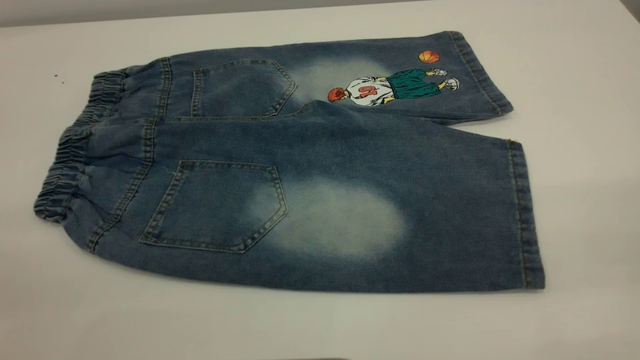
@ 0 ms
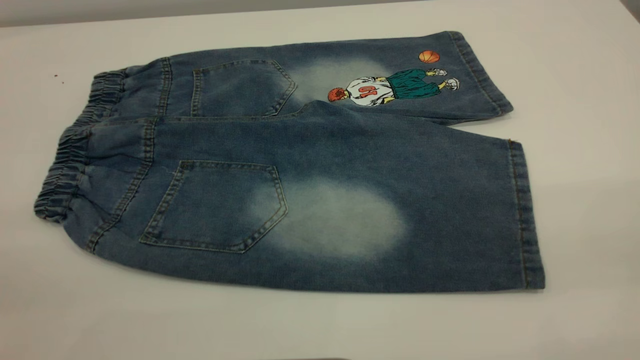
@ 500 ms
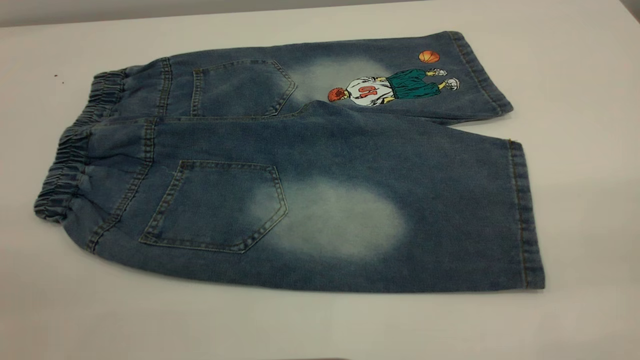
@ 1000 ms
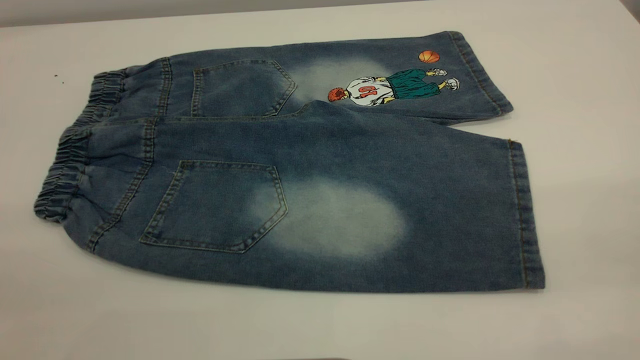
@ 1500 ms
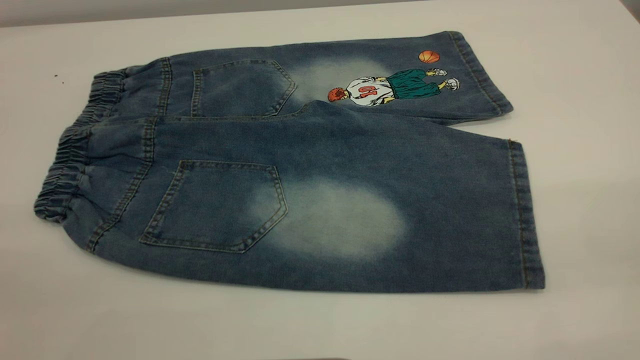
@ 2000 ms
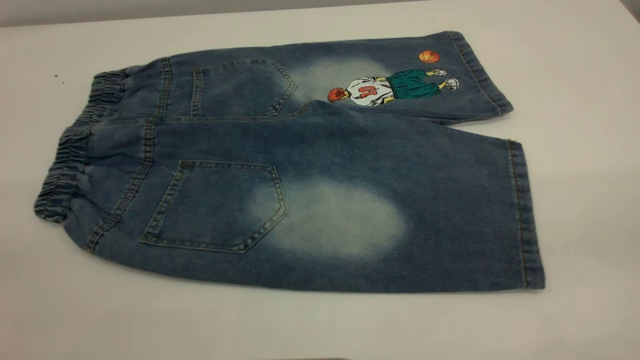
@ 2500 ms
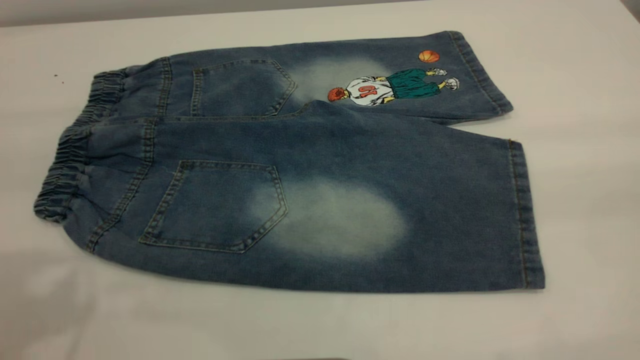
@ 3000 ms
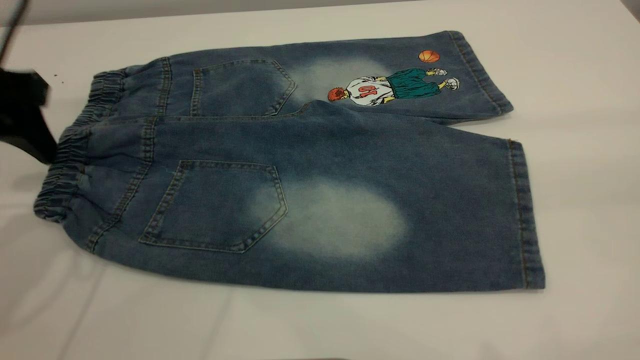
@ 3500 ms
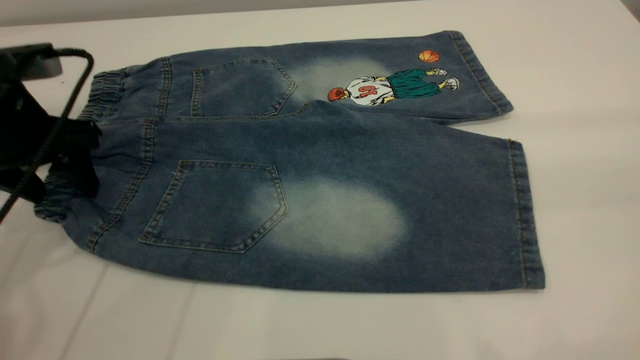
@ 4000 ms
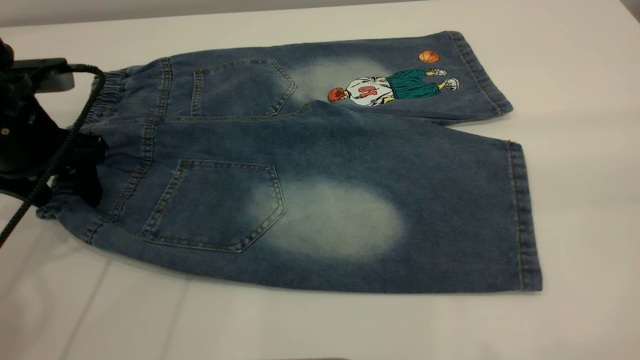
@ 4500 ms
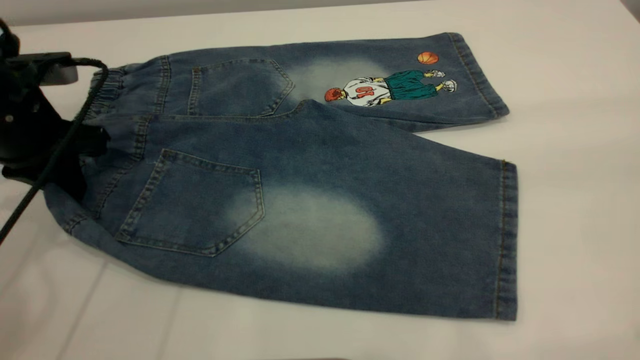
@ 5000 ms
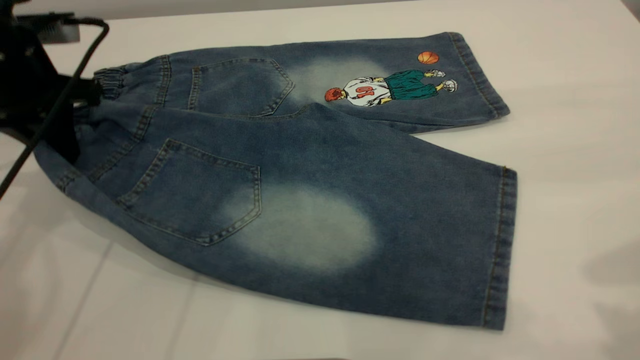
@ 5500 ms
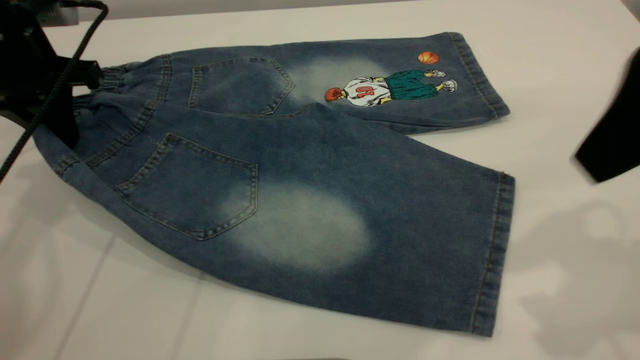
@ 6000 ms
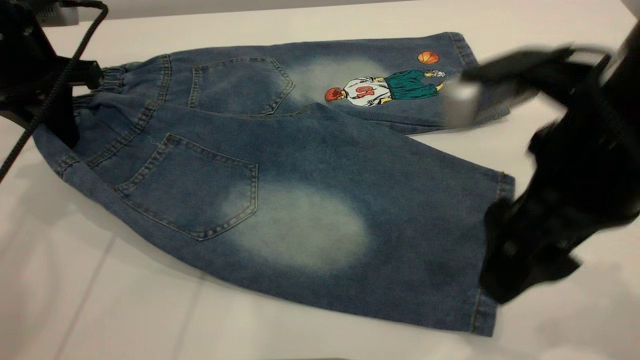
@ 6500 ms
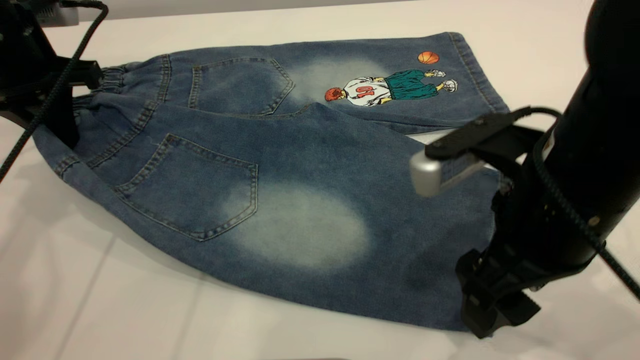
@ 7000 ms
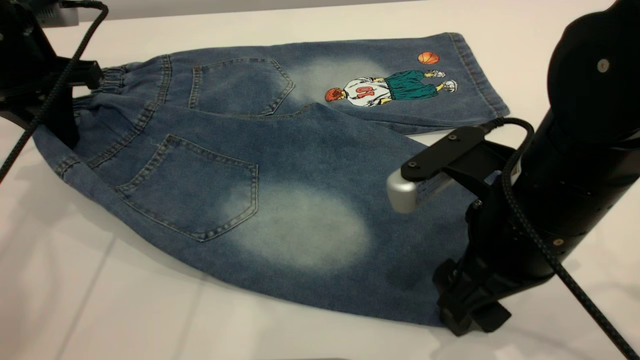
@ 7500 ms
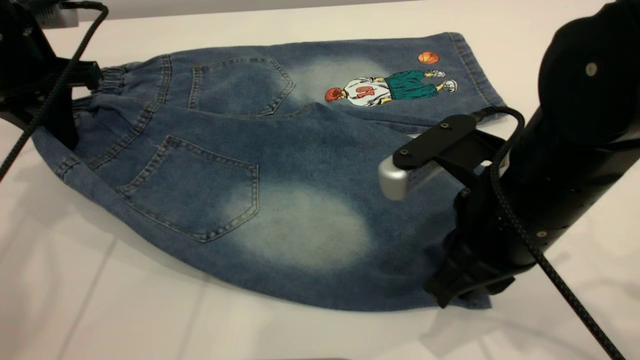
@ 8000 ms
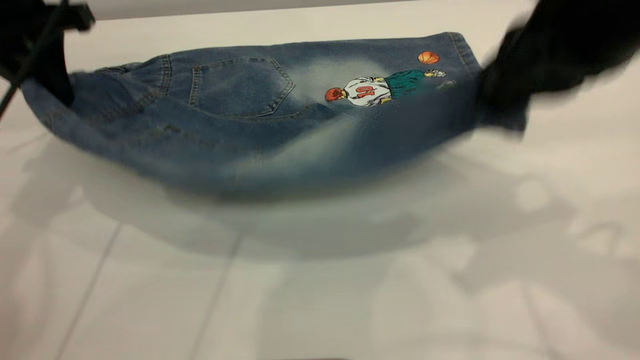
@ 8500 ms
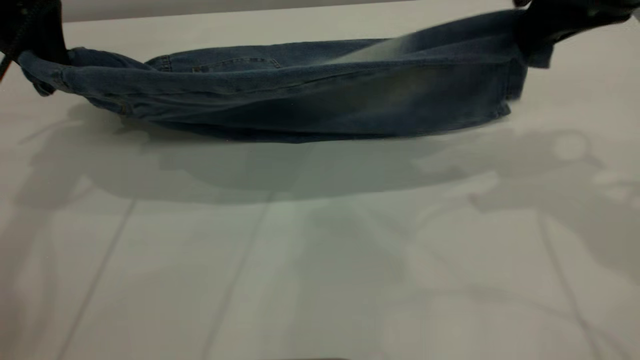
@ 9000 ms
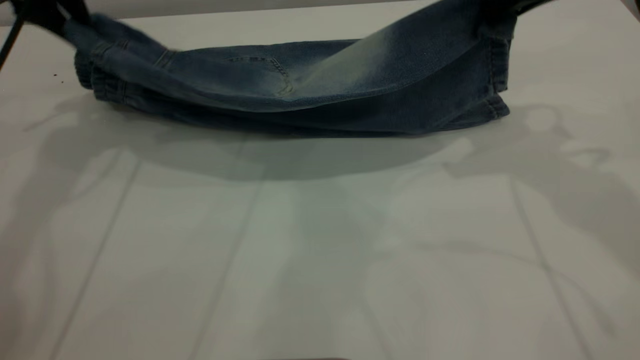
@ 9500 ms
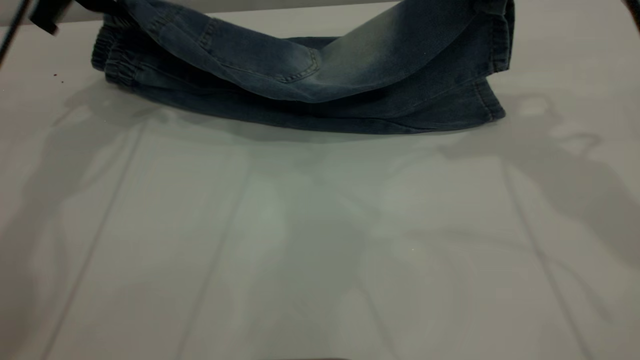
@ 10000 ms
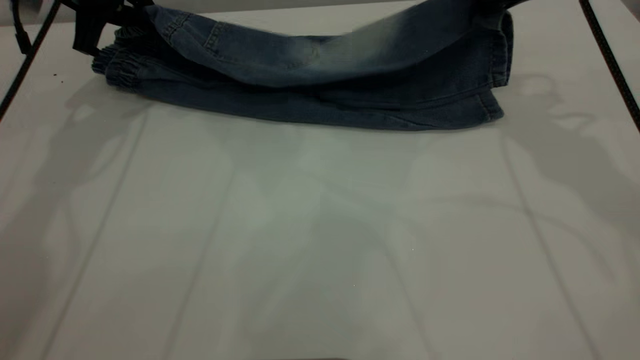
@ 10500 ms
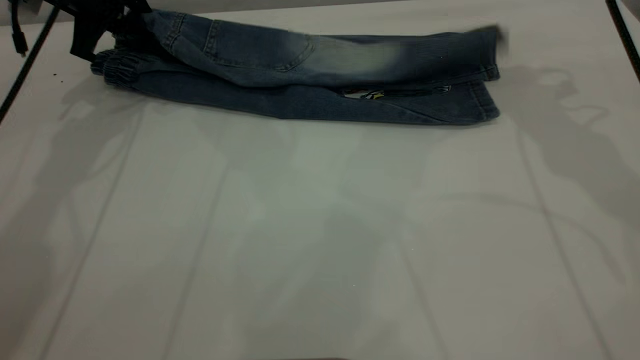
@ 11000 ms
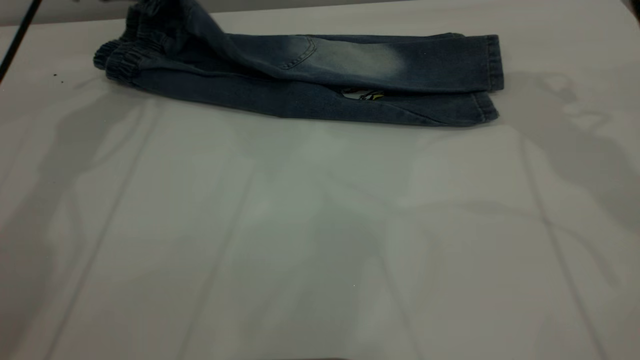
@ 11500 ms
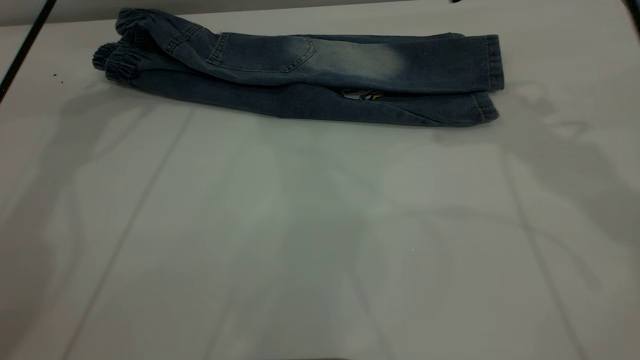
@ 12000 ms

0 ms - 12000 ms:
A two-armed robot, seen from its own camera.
Step, 0 ms - 11500 ms: Fold the bottom of the pants upward.
0 ms - 2000 ms: Neither gripper changes place.
2000 ms - 4000 ms: The left gripper is displaced forward and downward by approximately 40 cm.
4000 ms - 6000 ms: The right gripper heads forward, downward and to the left, covering approximately 15 cm, while the left gripper goes roughly 5 cm forward, and closes its fingers.
6000 ms - 8000 ms: The right gripper is displaced downward and to the left by roughly 15 cm, and closes.
8000 ms - 10000 ms: The left gripper shifts about 10 cm forward; the right gripper goes approximately 20 cm forward, upward and to the right.
10000 ms - 12000 ms: The left gripper opens, while the right gripper opens up.

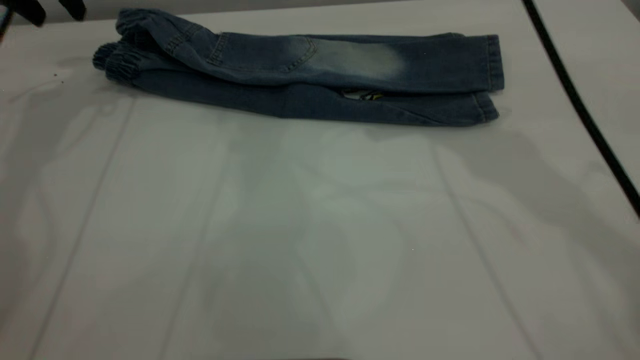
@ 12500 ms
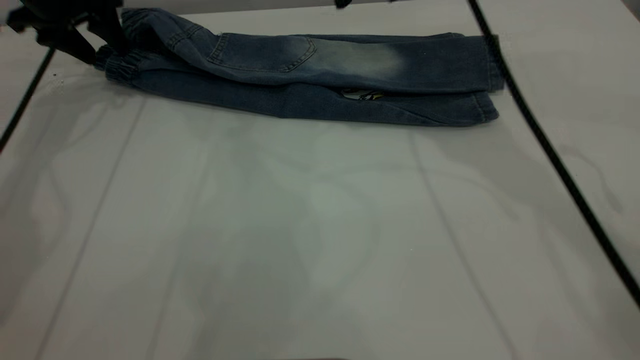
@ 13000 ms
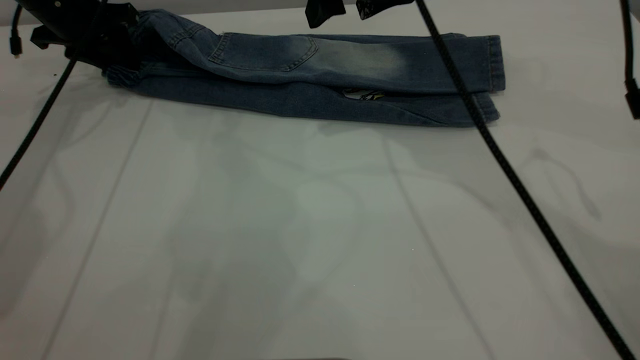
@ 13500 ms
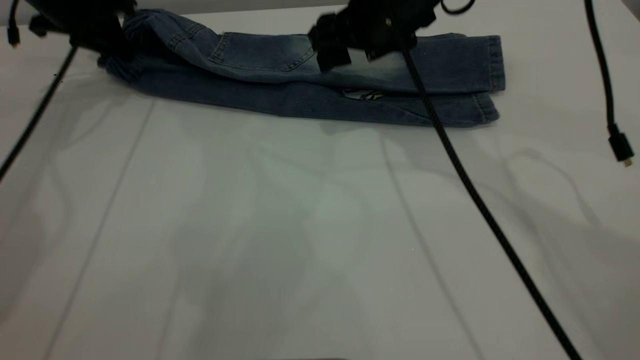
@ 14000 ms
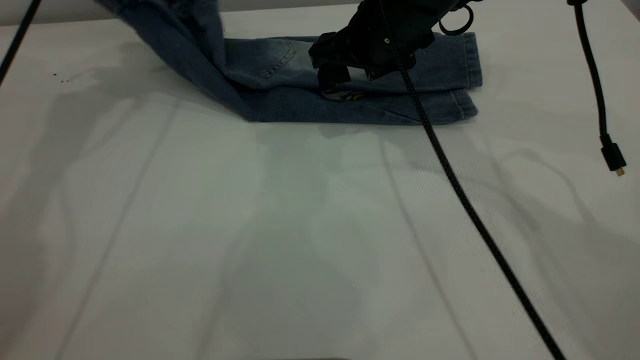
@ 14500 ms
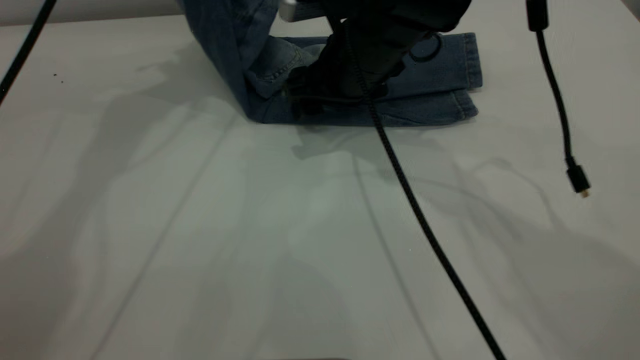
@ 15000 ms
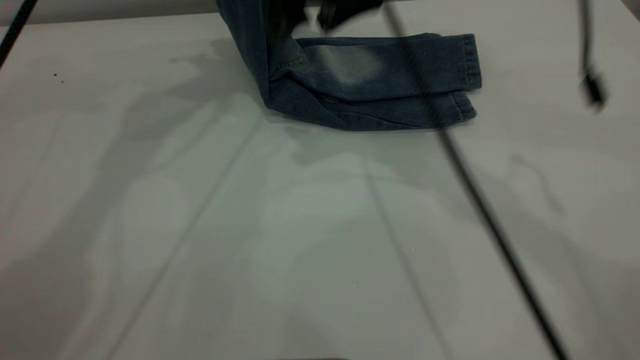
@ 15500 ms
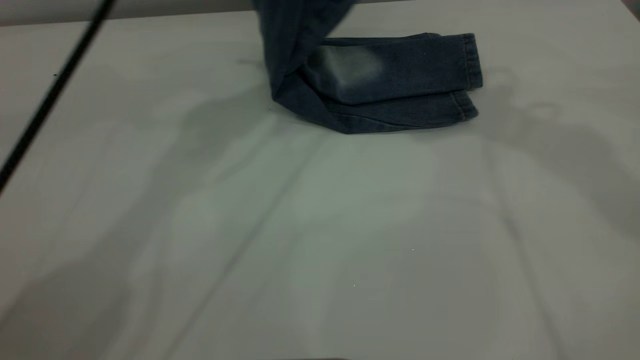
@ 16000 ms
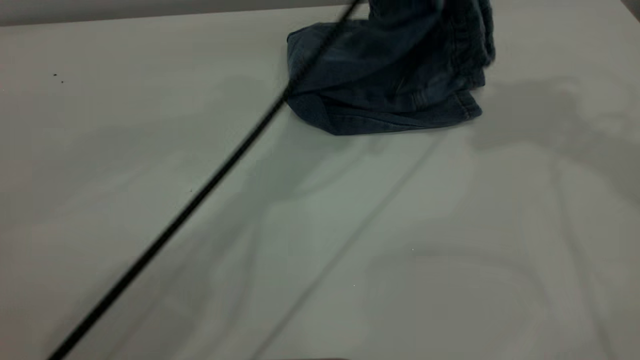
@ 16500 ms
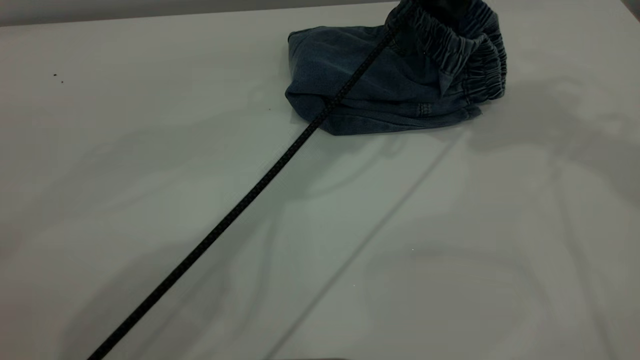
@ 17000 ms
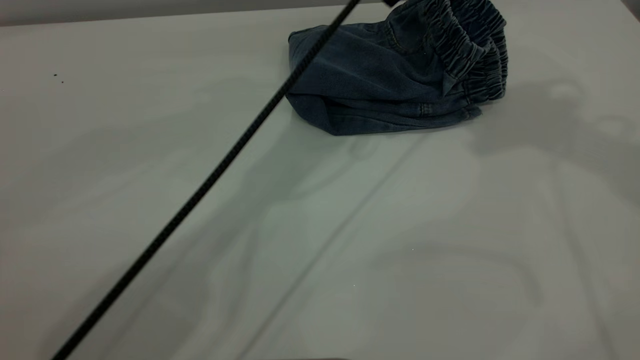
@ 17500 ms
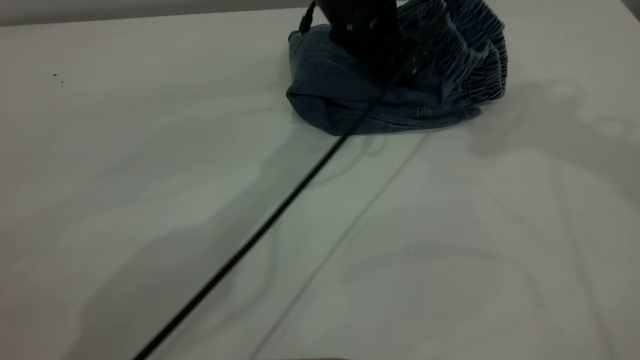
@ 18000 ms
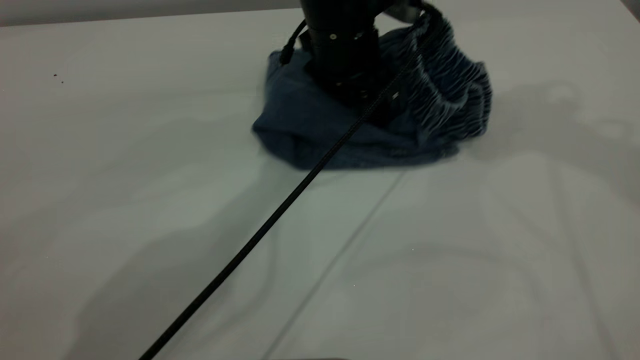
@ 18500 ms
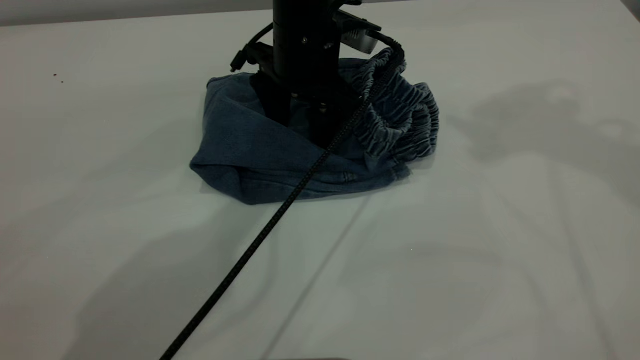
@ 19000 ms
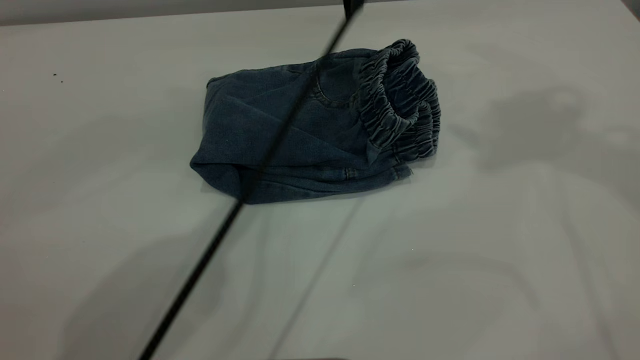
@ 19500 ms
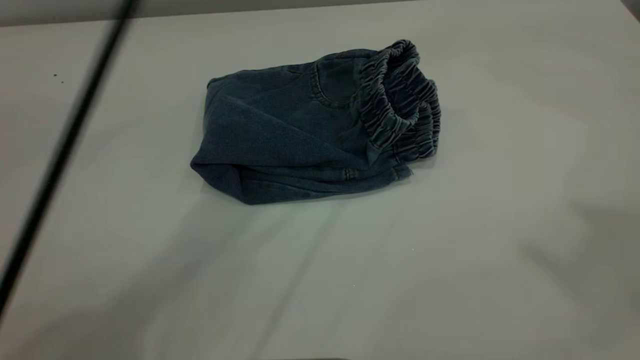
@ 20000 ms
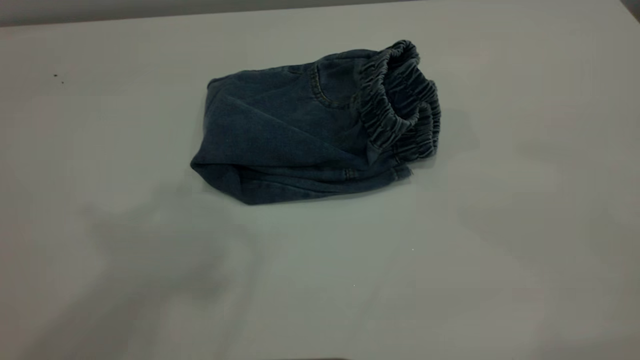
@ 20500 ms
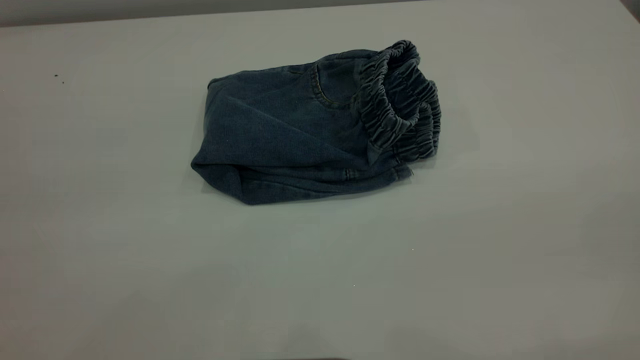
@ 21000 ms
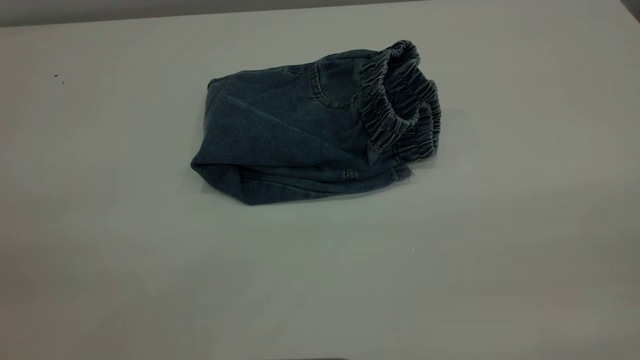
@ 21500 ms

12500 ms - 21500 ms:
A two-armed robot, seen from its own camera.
Step, 12500 ms - 17000 ms: Fold the pants from left to right.
12500 ms - 14500 ms: The right gripper goes approximately 10 cm downward. The left gripper goes roughly 5 cm to the right, goes downward and returns, some 10 cm each way, and closes its fingers.
14500 ms - 17000 ms: The left gripper is displaced to the right by about 30 cm, and opens; the right gripper is displaced upward and to the right by about 35 cm.
17000 ms - 19500 ms: The left gripper reaches approximately 10 cm downward, then returns.
19500 ms - 21500 ms: The left gripper is displaced backward and to the left by about 50 cm, while the right gripper travels backward by some 35 cm.
